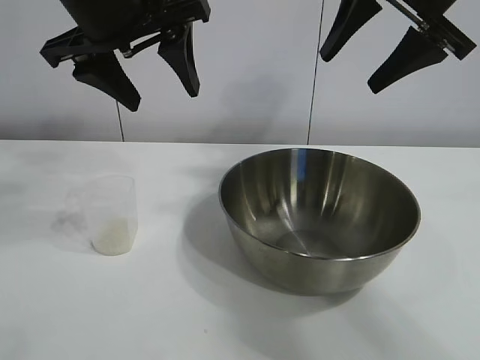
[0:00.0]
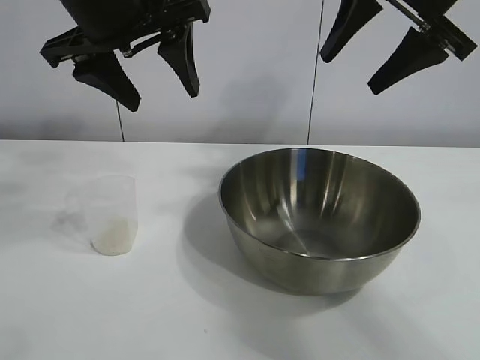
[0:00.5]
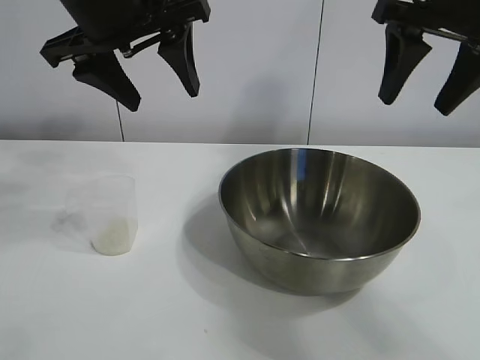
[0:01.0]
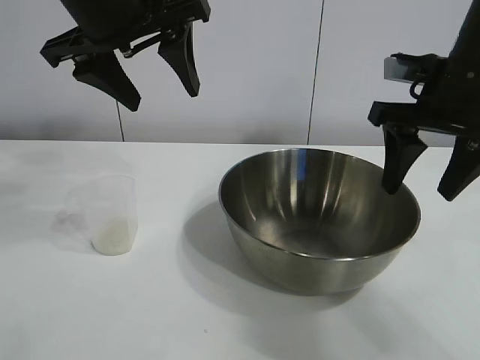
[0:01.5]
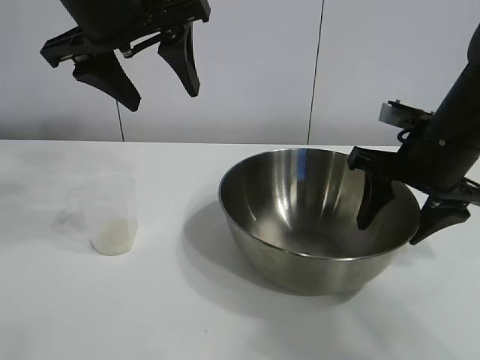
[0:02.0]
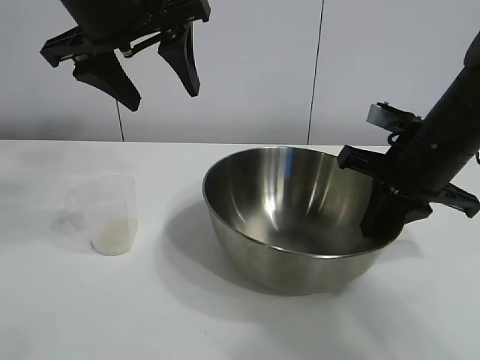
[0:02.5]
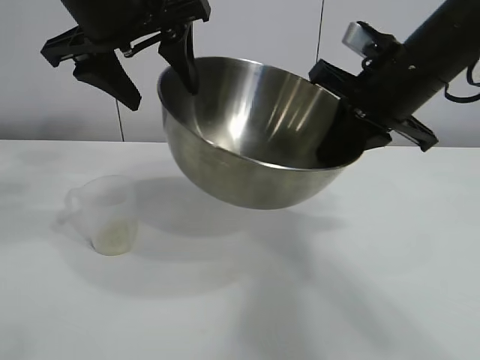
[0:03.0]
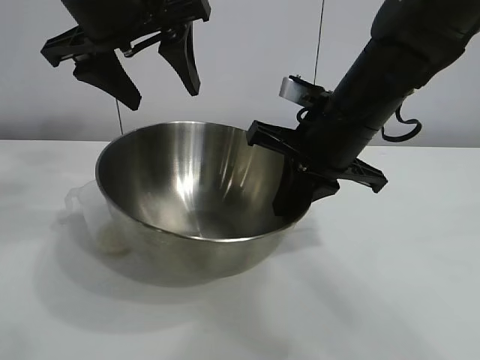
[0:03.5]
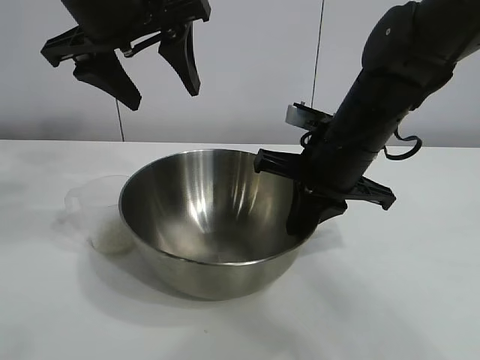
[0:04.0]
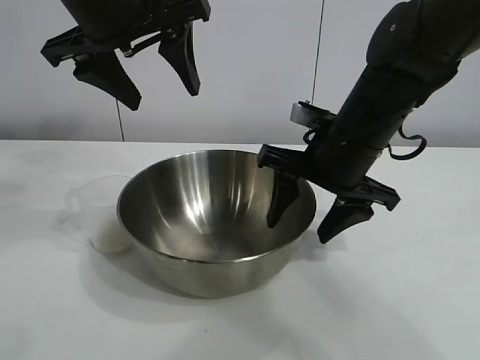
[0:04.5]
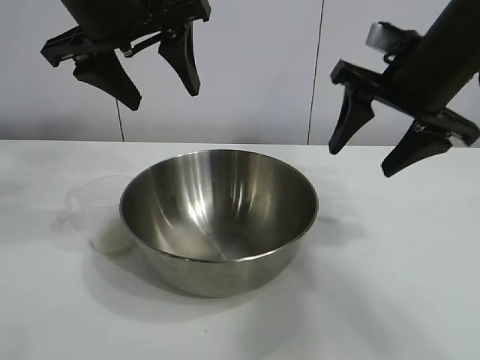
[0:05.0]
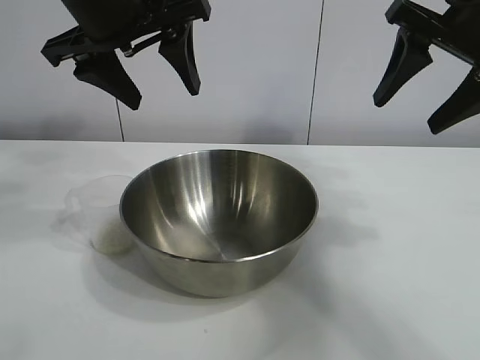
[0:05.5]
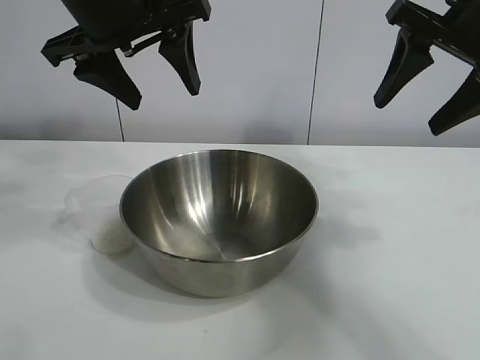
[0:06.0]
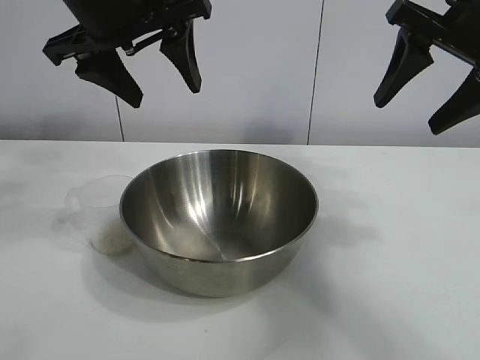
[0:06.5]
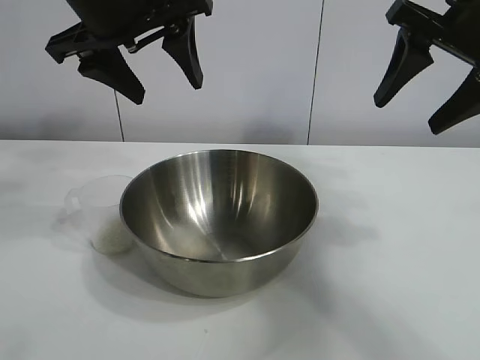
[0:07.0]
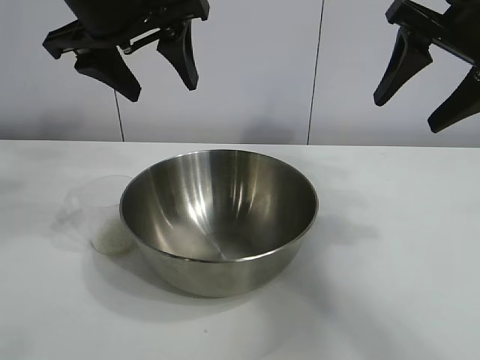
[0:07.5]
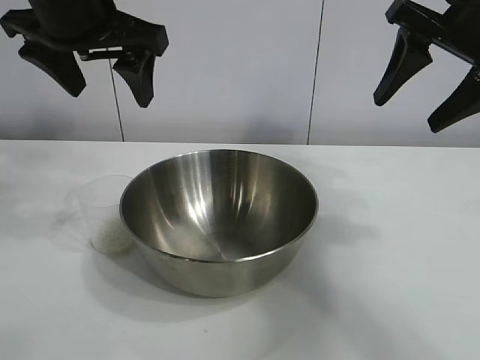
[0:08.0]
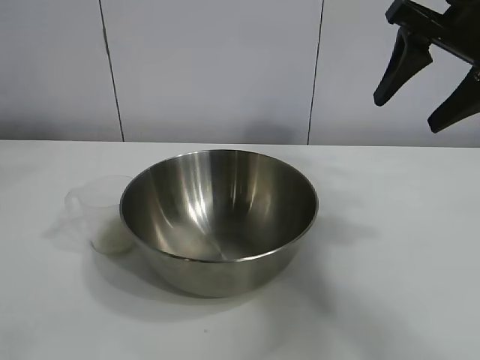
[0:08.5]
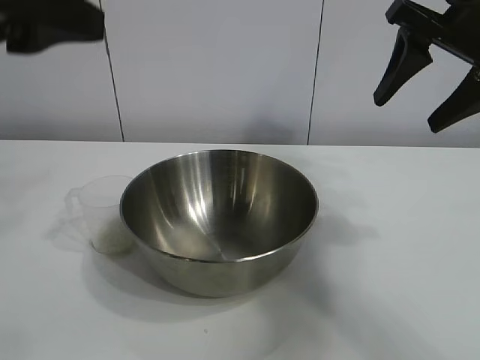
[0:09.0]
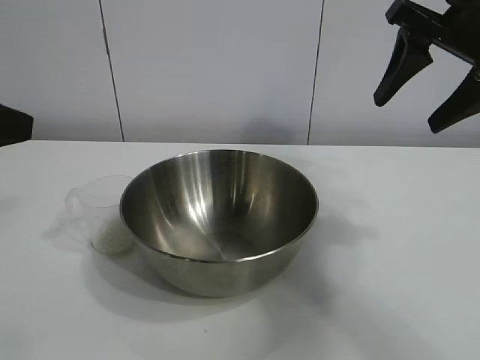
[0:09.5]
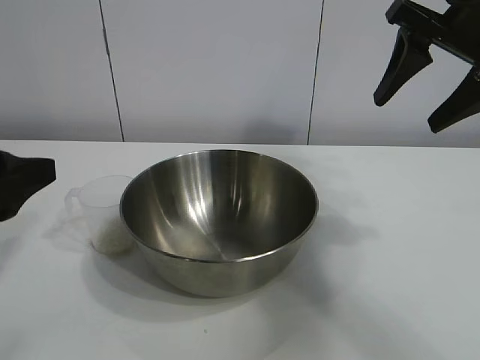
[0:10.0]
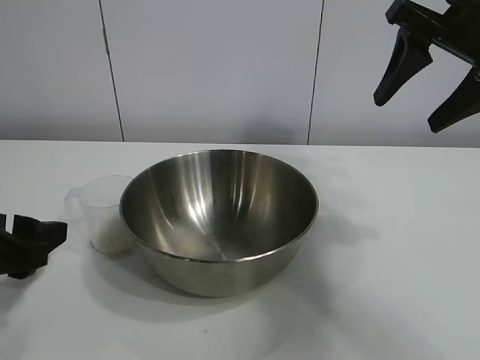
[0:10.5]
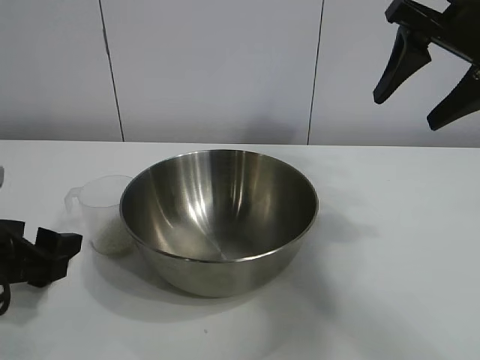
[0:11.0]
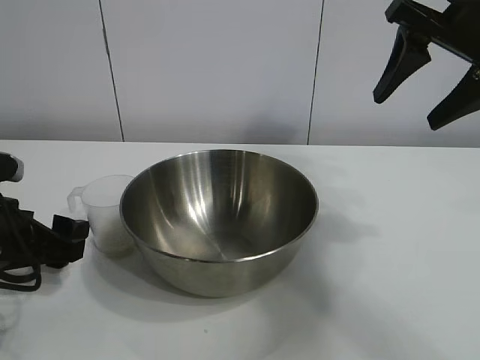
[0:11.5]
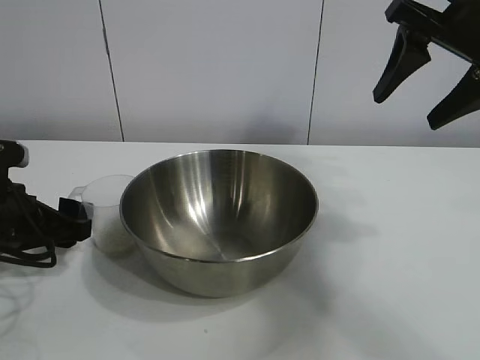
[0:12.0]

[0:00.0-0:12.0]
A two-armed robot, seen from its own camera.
Task of the whole recording: the right gripper grasp the rice container and place it in the center of the table, the left gripper grasp the rice scoop and pour the rice into the rice container.
Step, 0:01.0 to 0:04.0: Move the bowl in the center of view with right gripper.

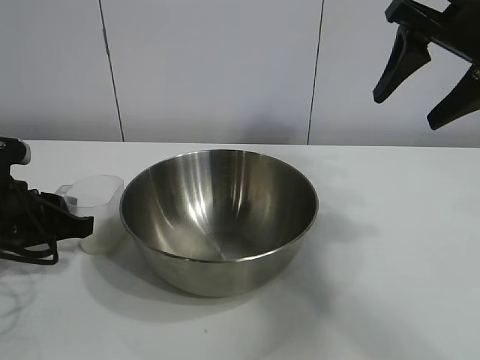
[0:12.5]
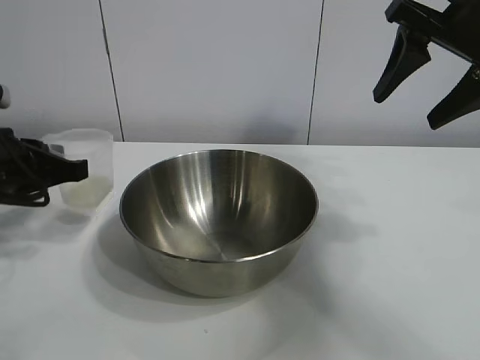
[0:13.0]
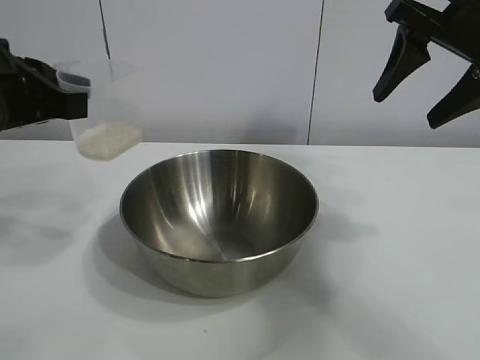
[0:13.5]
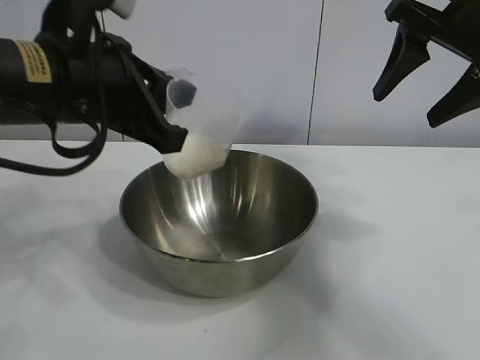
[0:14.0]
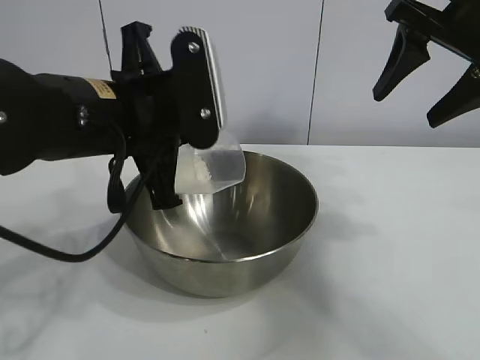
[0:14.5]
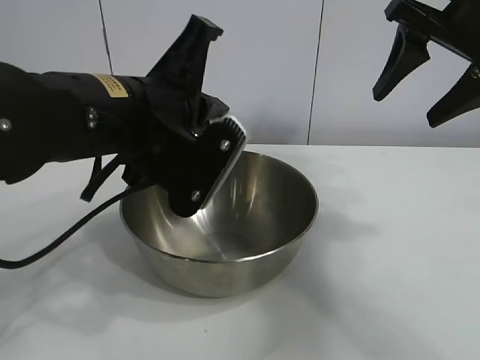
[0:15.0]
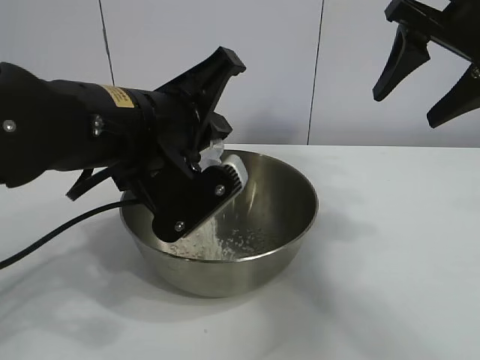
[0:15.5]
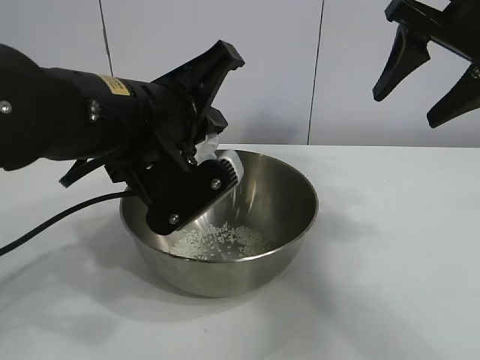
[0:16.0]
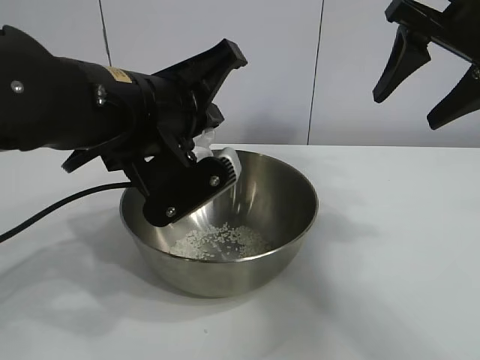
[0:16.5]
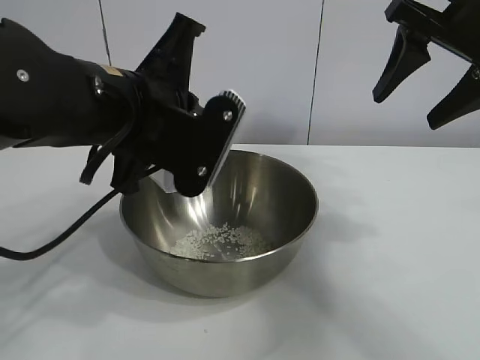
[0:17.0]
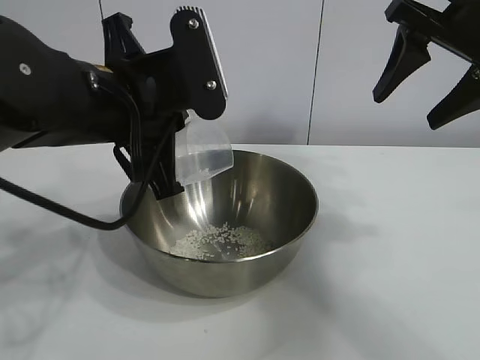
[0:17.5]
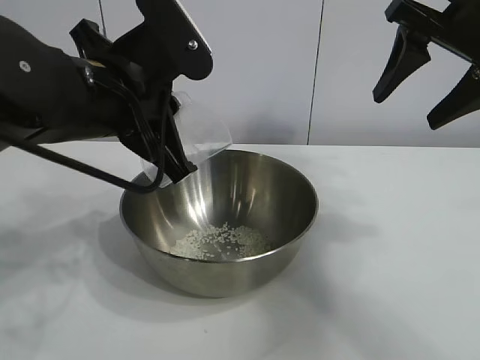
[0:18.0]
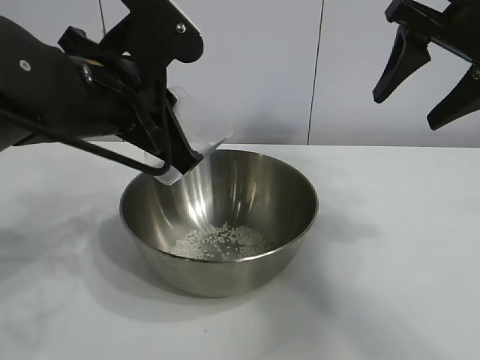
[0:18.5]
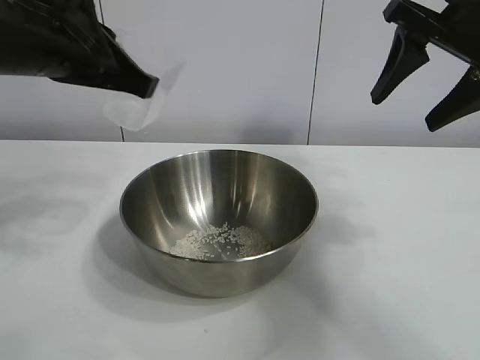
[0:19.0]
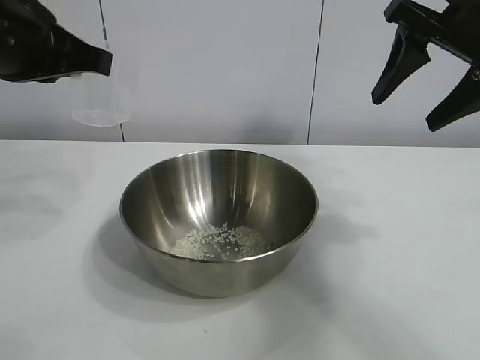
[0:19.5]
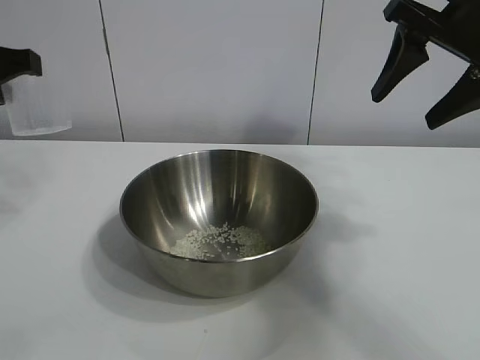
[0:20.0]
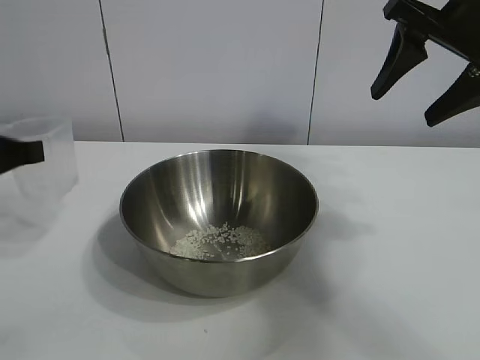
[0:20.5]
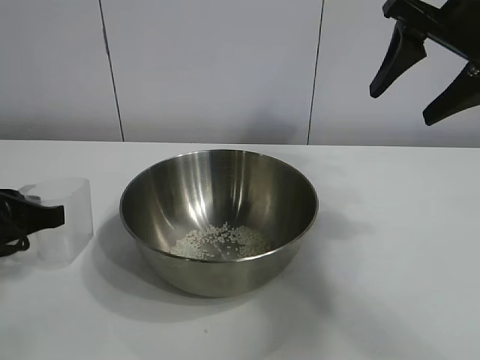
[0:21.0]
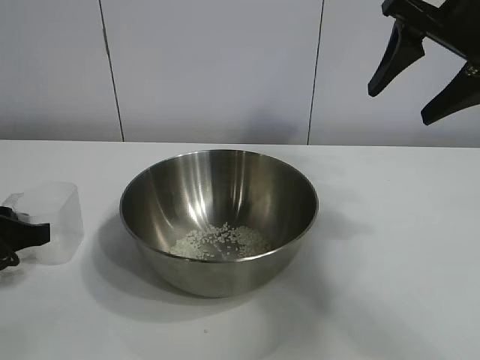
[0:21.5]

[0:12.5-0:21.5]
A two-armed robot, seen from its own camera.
Task of the whole recording: the right gripper grasp the rice container and place it in the center of the table, the left gripper grasp the rice scoop and pour the rice into the rice container.
Step, 0:13.0 to 0:16.5: Pour the rice from the cup into the bowl with the left gripper.
Step, 0:17.0 to 0:21.5: Place the cup on the table with the left gripper.

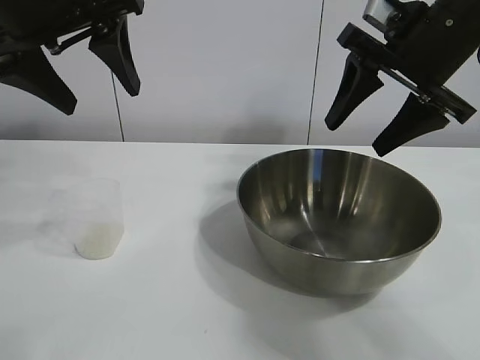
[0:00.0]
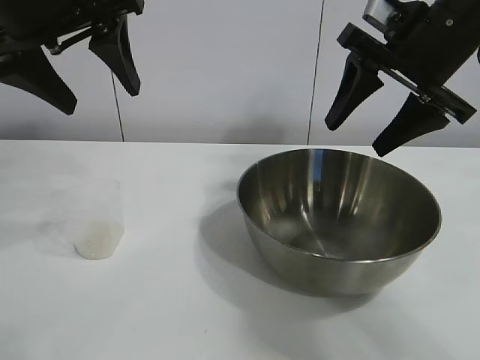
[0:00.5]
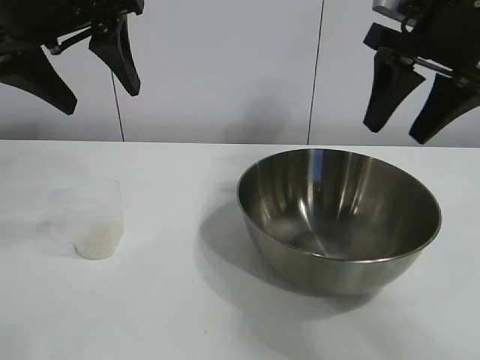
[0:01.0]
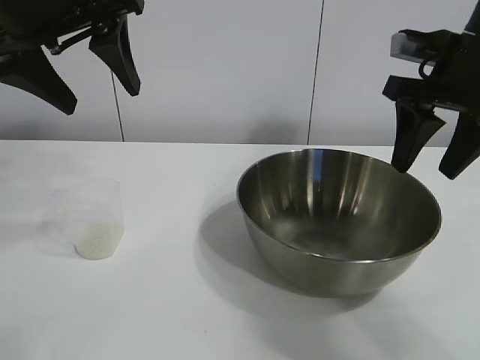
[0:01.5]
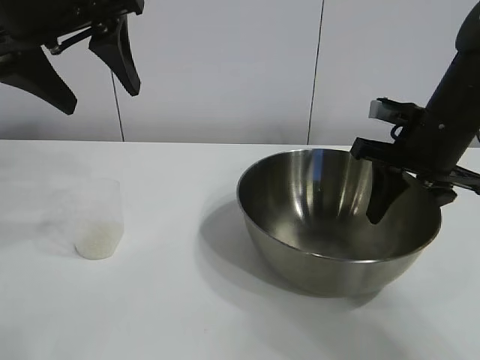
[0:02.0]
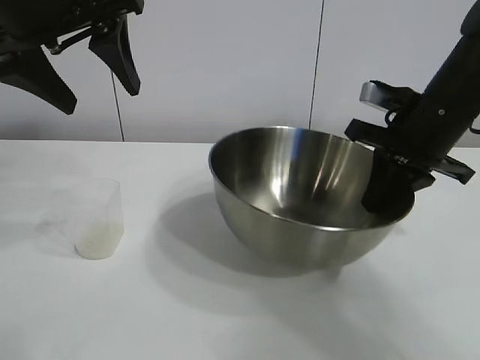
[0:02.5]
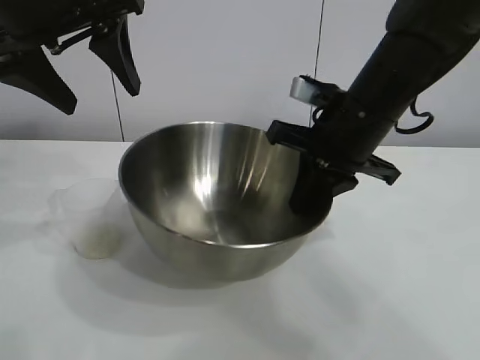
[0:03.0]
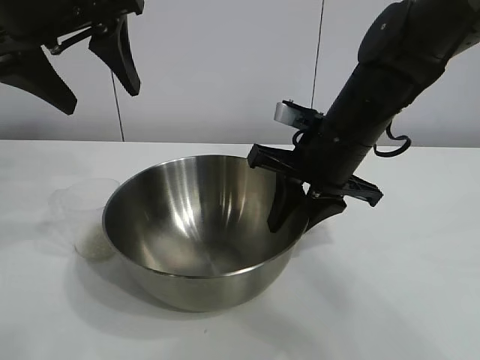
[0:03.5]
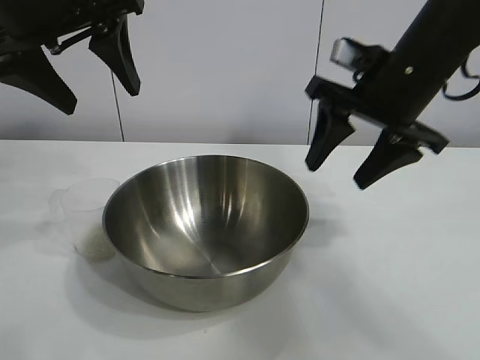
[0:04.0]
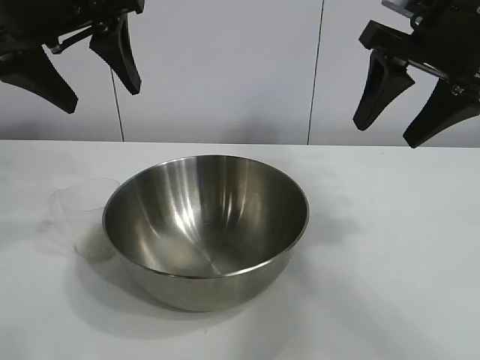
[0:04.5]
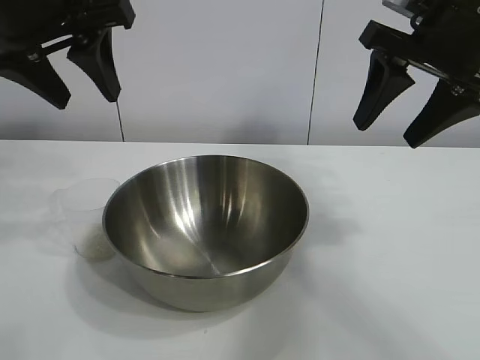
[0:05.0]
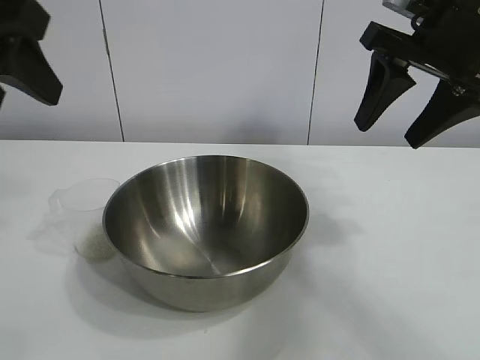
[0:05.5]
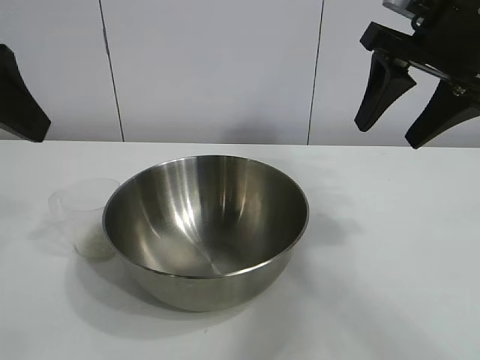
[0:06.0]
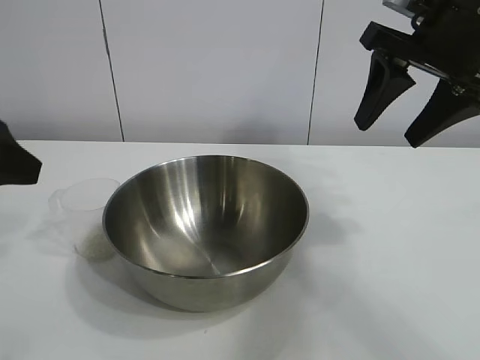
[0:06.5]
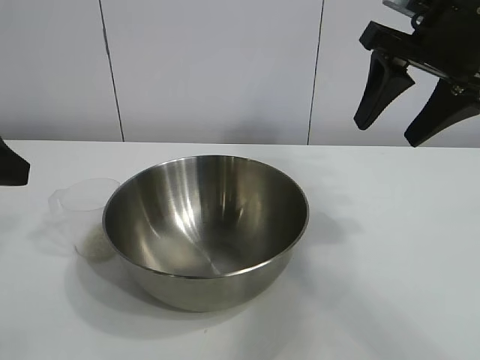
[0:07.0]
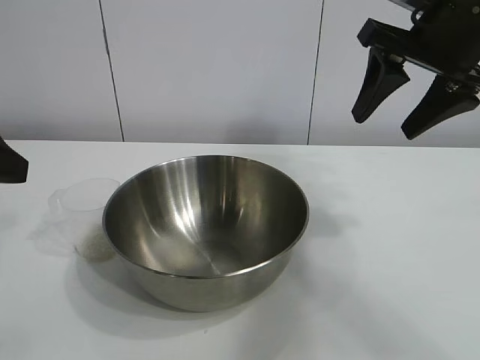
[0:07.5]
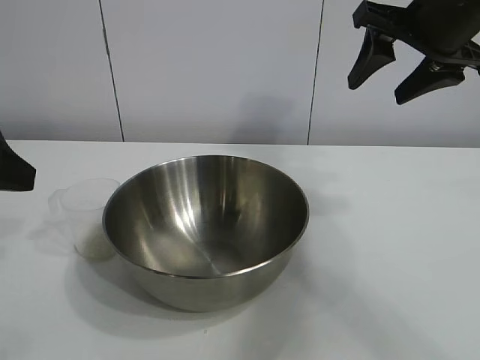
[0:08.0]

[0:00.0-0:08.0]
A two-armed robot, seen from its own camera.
Task of the whole recording: the right gripper grasp the rice container and place it in the center of the table, the left gripper grasp the rice scoop and pour the rice into the rice container.
Step, 0:01.0 to 0:03.5: Move the bowl in the center of view with right gripper.